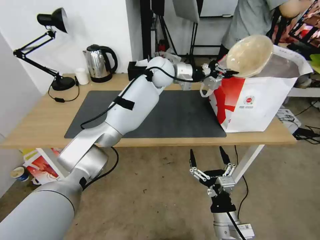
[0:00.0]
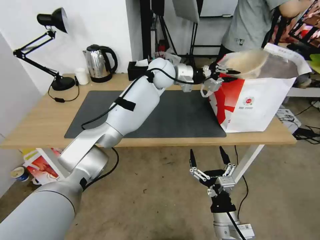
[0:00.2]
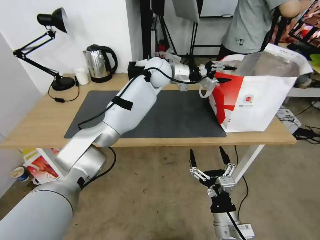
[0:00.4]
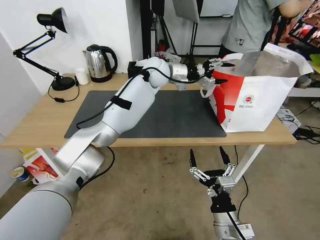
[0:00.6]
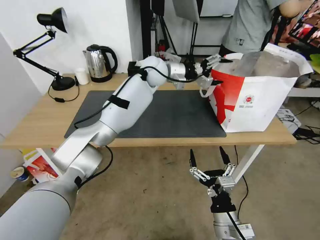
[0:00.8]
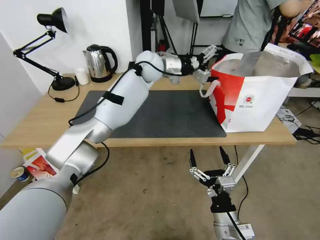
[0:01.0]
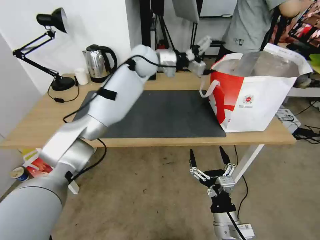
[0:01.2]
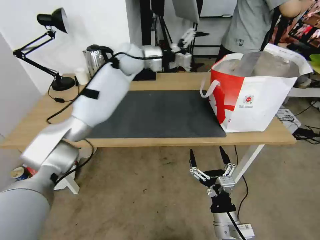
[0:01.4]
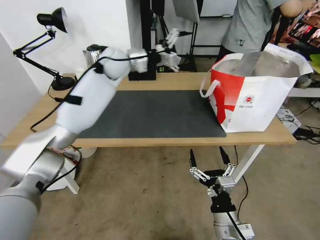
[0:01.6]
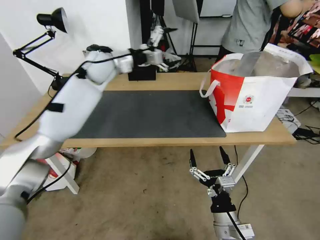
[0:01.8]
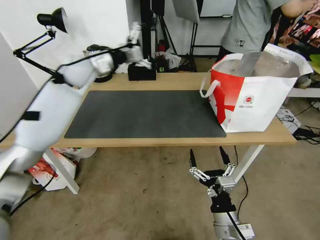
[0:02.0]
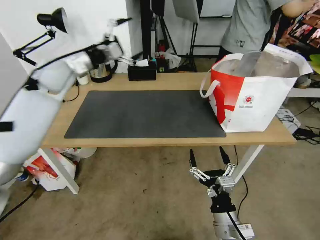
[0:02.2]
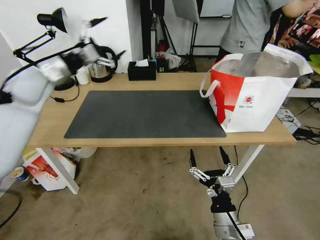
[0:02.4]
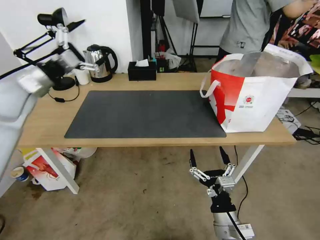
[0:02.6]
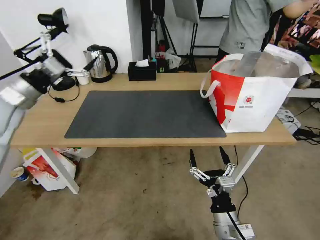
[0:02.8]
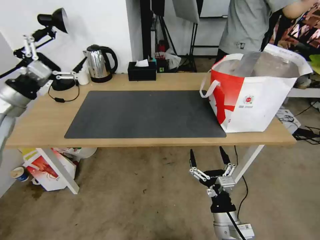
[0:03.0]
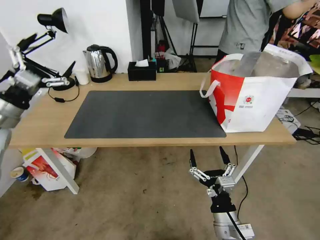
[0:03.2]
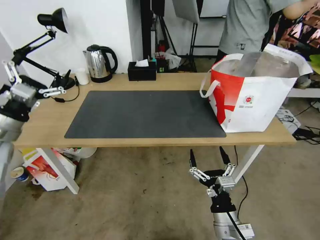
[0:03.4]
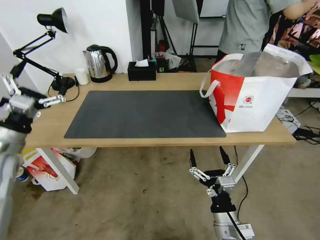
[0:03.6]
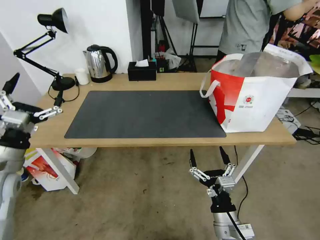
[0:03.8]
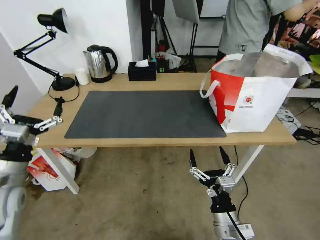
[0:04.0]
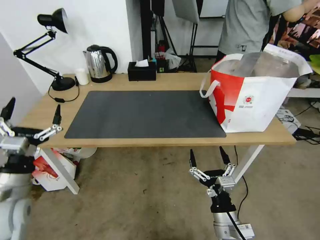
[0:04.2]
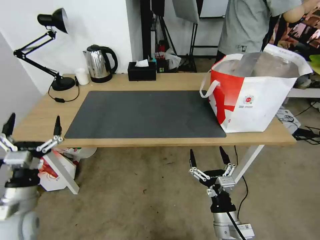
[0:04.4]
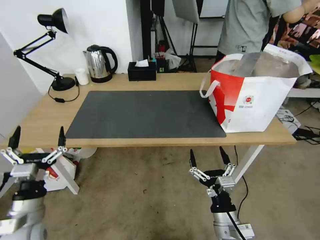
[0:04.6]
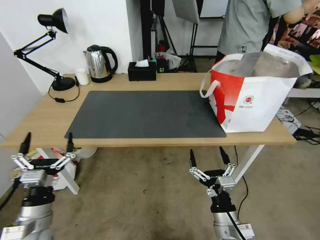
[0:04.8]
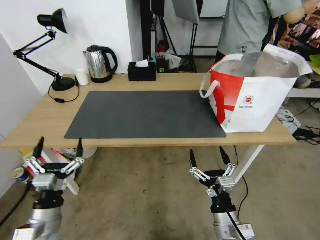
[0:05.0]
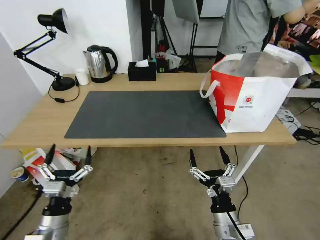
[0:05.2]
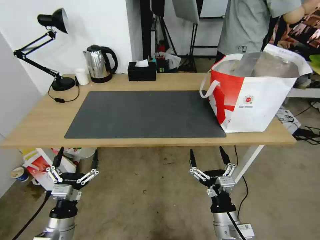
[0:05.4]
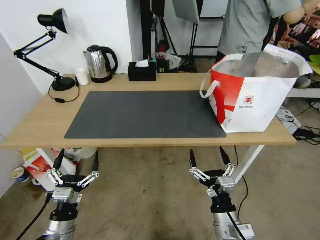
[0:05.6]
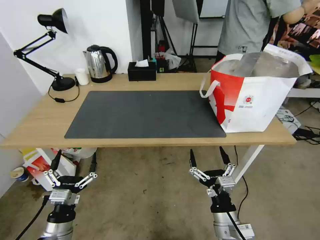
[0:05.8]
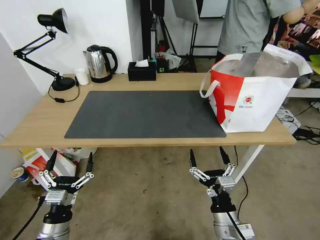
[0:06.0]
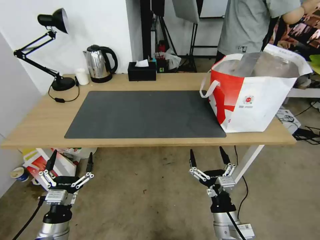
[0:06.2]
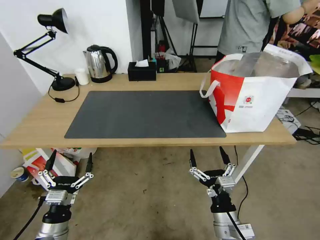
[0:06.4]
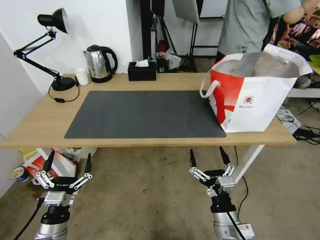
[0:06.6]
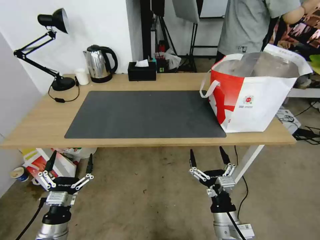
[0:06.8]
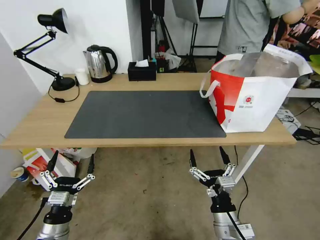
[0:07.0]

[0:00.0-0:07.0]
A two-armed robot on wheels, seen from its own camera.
Task of the whole recording: Pick up the trash from the table and place it into the takeout bag.
0:00.0 to 0:01.4: The left gripper shifts some 10 cm to the left, and opens its fingers.
0:01.4 to 0:02.8: The left gripper goes some 40 cm to the left and backward.
0:02.8 to 0:04.2: The left gripper is displaced backward and downward by some 25 cm.
0:04.2 to 0:05.6: The left gripper goes roughly 15 cm downward, to the right and backward.
0:05.6 to 0:07.0: The grippers make only small movements.

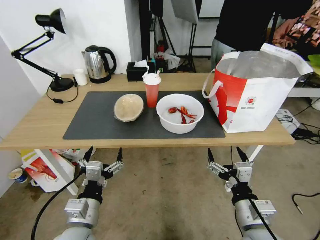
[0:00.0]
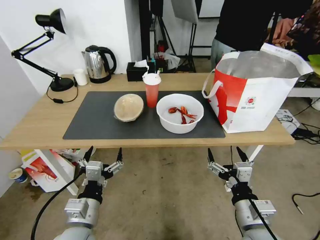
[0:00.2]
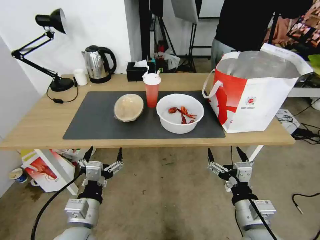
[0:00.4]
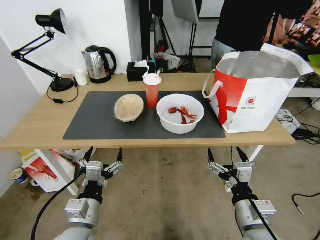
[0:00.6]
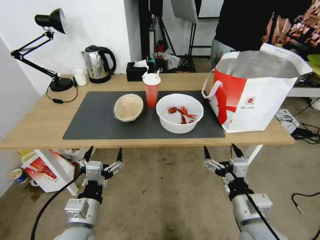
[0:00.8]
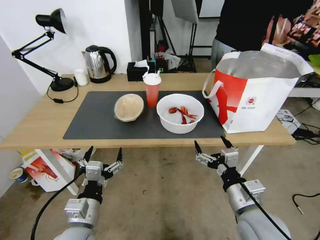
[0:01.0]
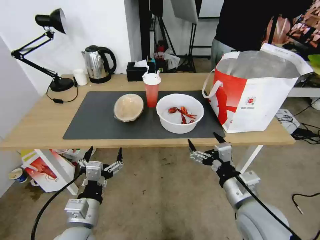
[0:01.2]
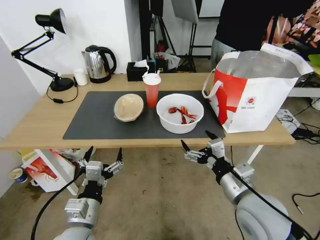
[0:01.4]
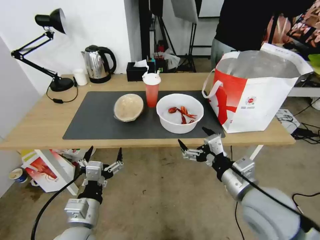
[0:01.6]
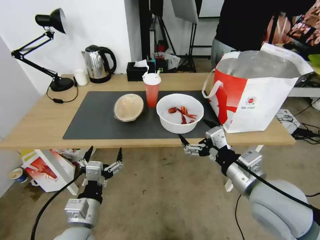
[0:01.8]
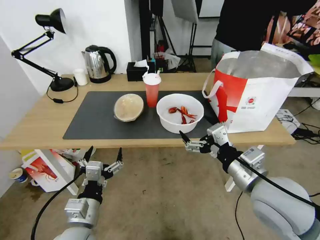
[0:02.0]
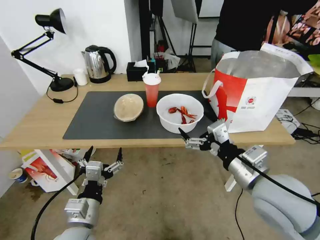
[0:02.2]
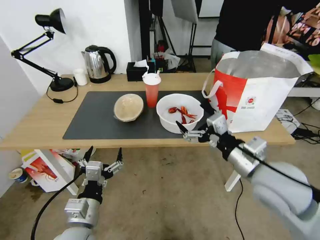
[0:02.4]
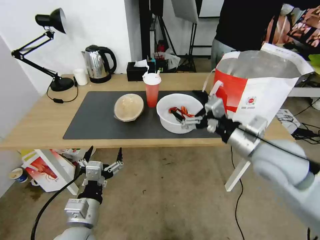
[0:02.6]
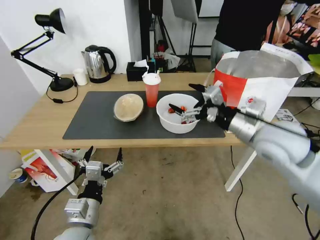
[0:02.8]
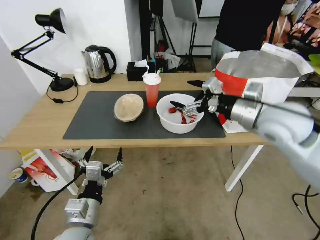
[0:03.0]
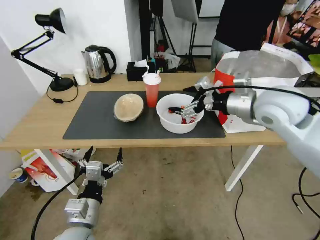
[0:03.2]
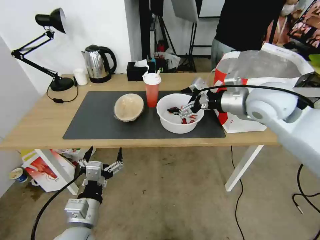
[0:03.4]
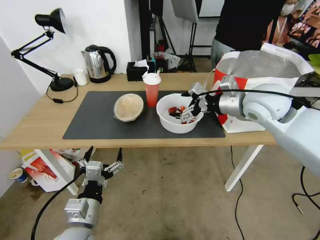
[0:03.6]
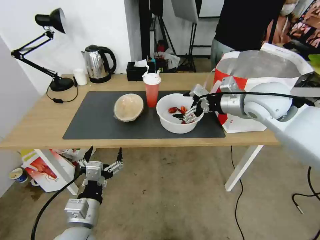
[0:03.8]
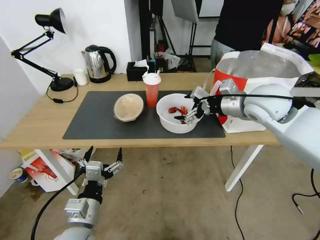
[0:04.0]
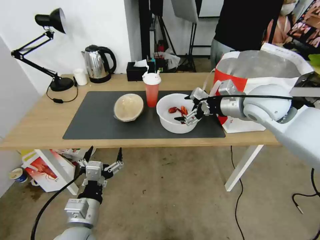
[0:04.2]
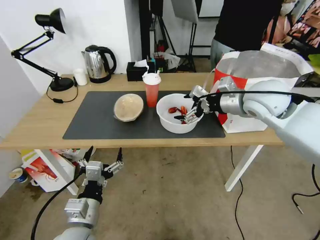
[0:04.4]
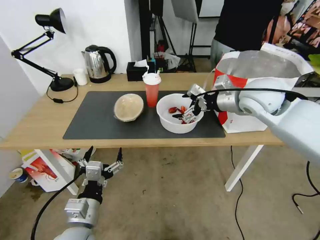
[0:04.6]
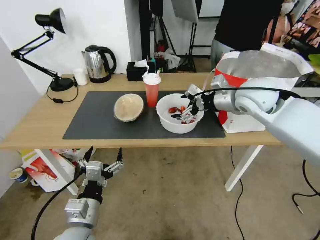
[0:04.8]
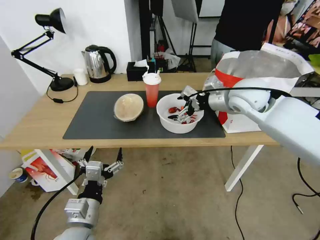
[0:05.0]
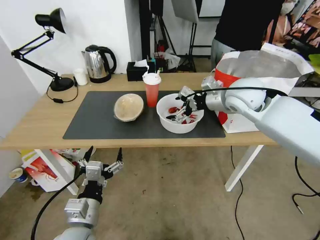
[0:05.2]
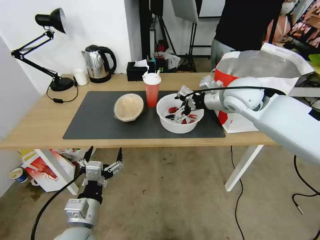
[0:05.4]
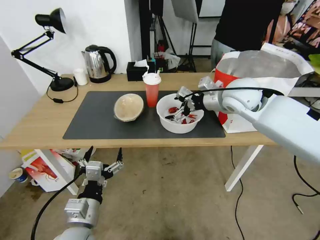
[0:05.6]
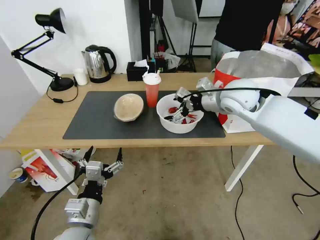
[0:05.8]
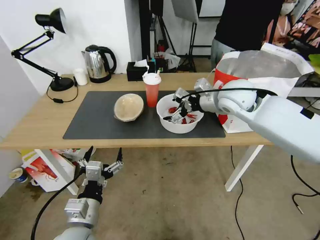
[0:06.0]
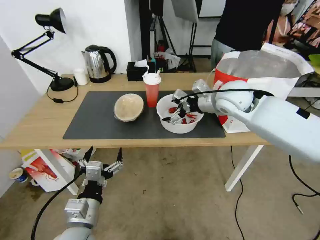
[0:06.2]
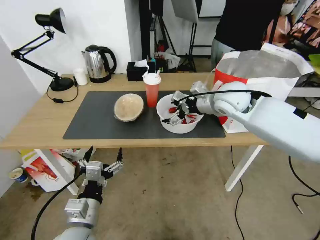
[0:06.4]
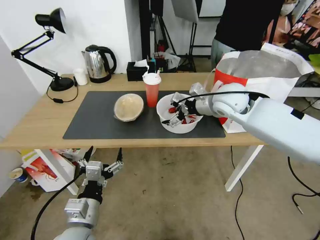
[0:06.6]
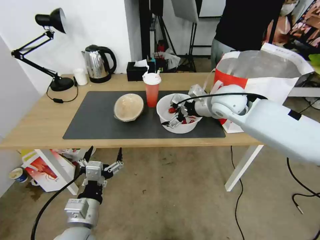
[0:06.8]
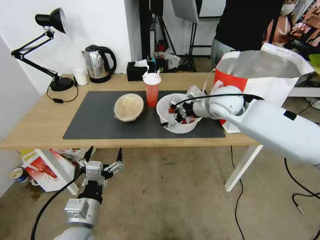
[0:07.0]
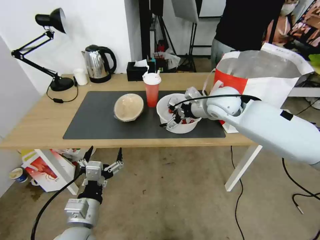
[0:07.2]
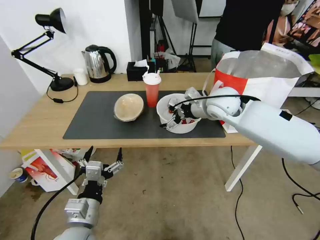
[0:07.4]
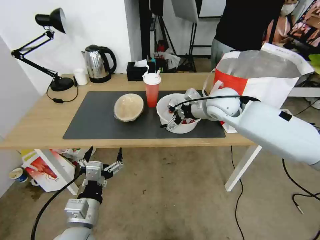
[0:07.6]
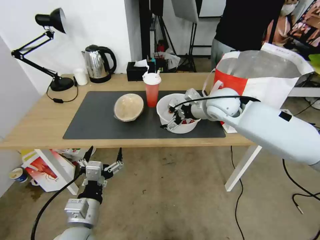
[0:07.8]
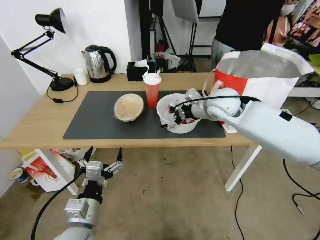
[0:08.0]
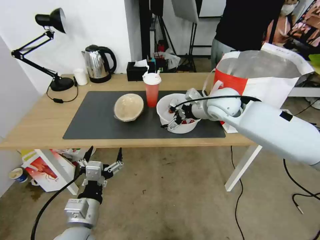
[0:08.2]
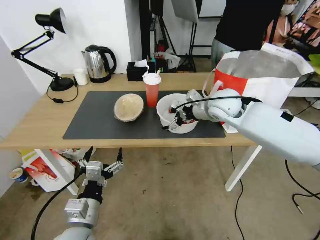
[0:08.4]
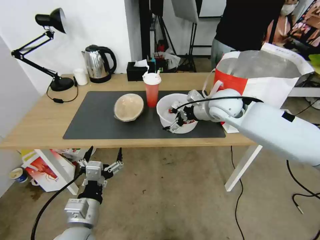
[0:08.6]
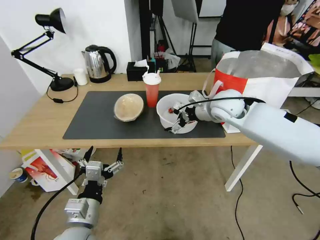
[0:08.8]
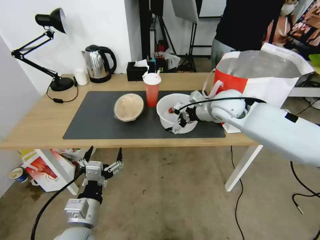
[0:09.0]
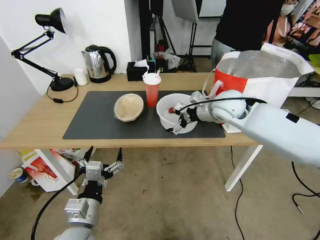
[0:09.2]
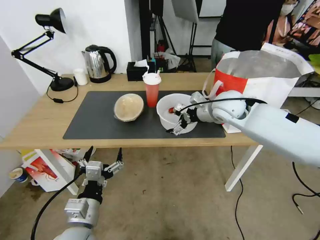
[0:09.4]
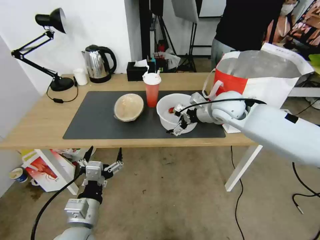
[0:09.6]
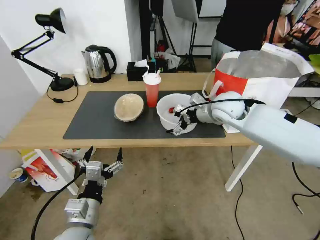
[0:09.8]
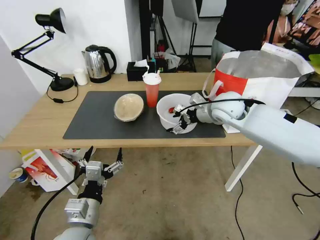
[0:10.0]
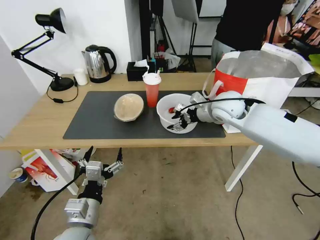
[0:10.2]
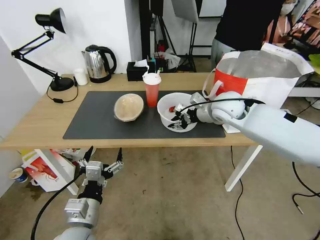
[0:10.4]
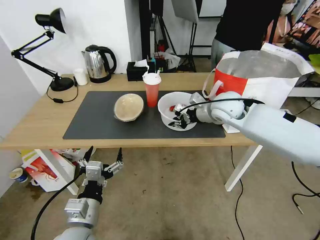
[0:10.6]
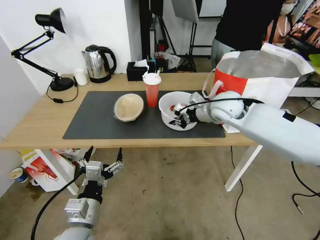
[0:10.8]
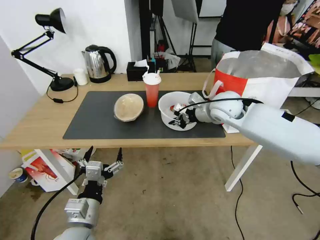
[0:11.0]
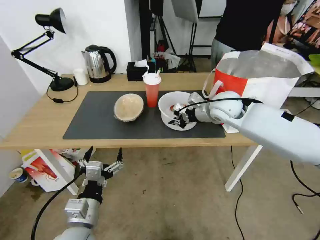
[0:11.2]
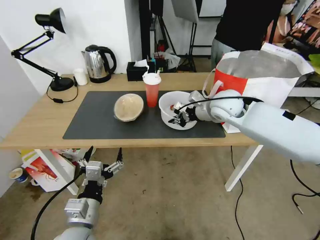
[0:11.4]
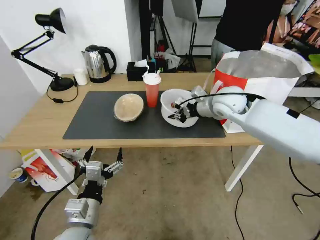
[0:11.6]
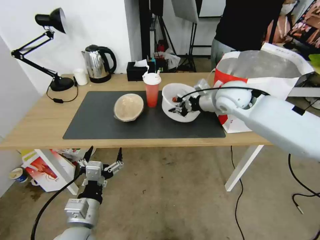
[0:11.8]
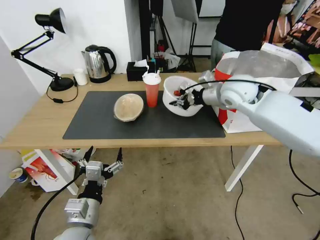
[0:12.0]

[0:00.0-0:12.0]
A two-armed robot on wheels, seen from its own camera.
Task of the whole recording: Pick up the trash from the table and place it into the takeout bag.
0:01.6 to 0:03.0: The right gripper is displaced forward and upward by approximately 20 cm.
0:03.0 to 0:04.4: The right gripper moves forward, some 5 cm.
0:04.4 to 0:06.0: The right gripper moves approximately 5 cm.
0:06.0 to 0:09.0: The grippers stay close to where they were, moving slightly.
0:09.0 to 0:10.4: The right gripper closes up.
0:10.4 to 0:12.0: The right gripper shifts some 5 cm upward.

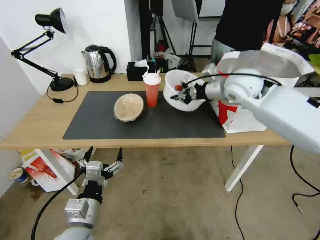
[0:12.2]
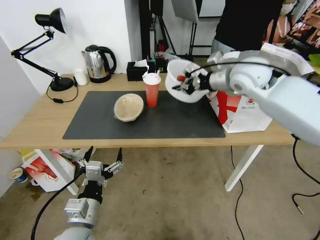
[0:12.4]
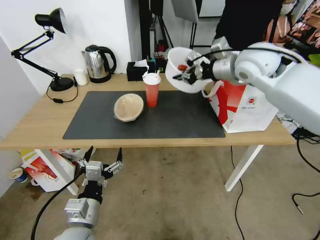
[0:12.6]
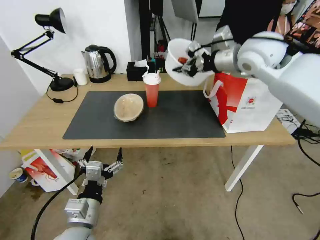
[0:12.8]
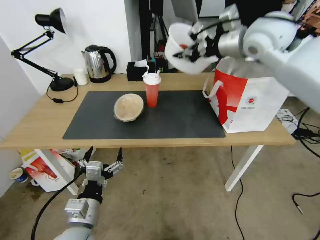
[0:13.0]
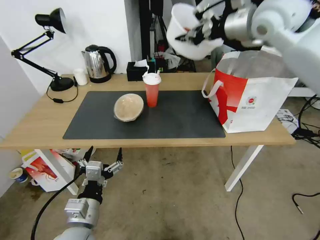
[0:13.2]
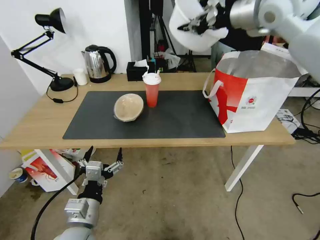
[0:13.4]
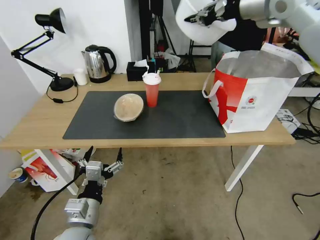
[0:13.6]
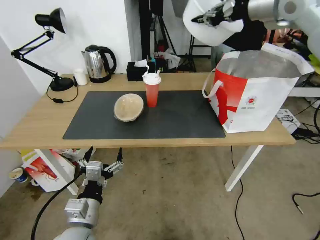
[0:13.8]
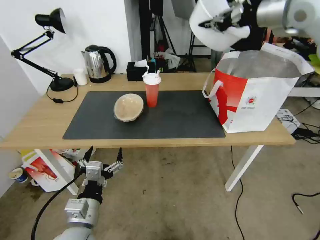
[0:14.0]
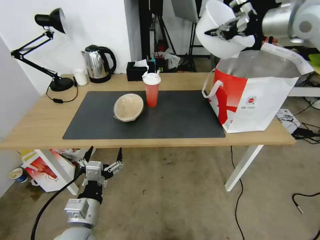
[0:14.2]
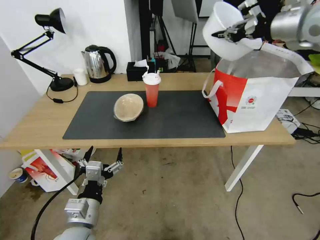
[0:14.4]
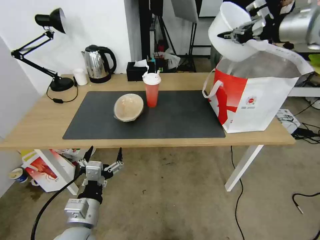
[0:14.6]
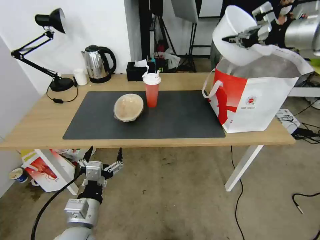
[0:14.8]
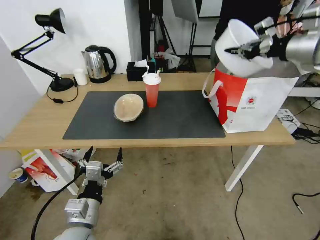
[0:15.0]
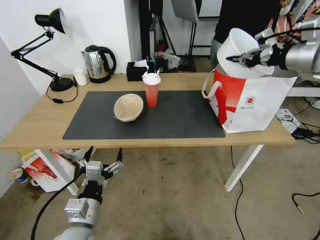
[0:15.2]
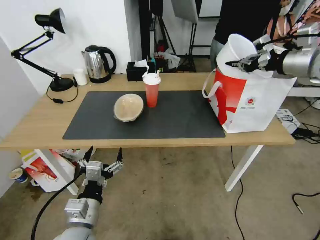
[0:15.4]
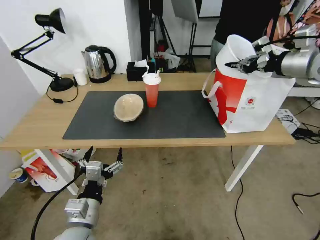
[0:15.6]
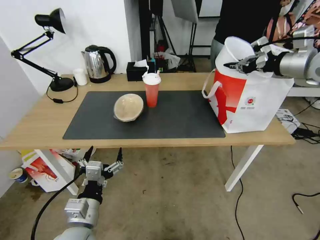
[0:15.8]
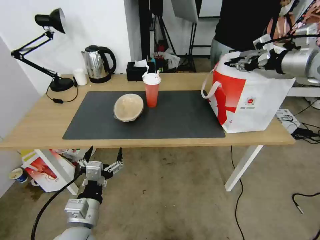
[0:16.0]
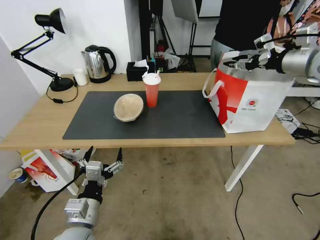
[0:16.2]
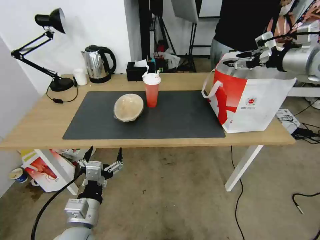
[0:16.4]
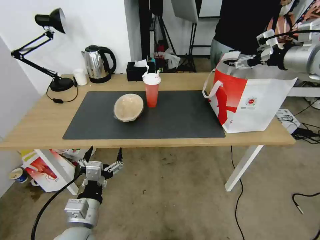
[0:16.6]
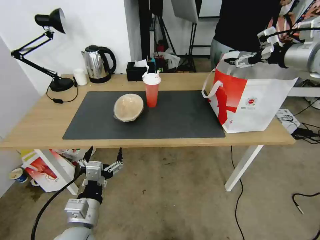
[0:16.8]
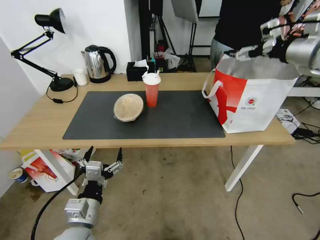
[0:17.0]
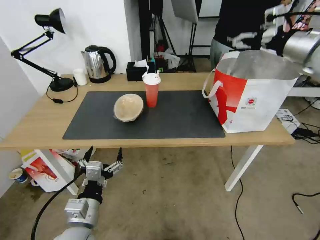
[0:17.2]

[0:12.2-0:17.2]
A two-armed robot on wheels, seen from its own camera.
Task of the whole recording: Pick up the trash from the table and place it into the takeout bag.
0:12.2 to 0:13.8: The right gripper moves upward, some 20 cm.
0:13.8 to 0:15.6: The right gripper goes approximately 15 cm downward, to the right and backward.
0:15.6 to 0:17.2: The right gripper opens up.
